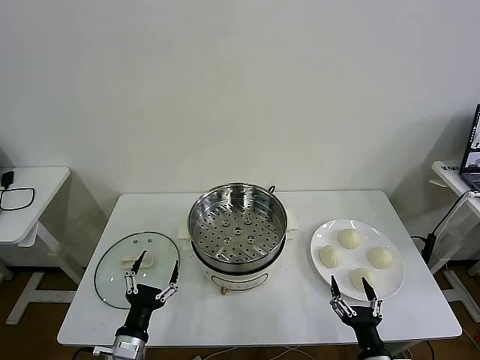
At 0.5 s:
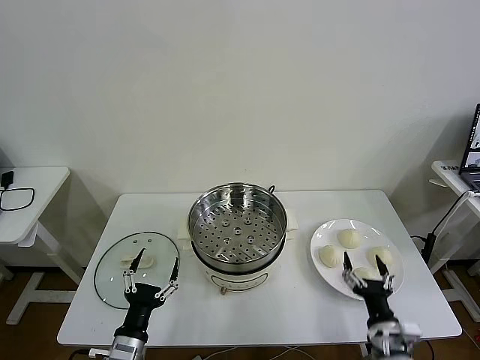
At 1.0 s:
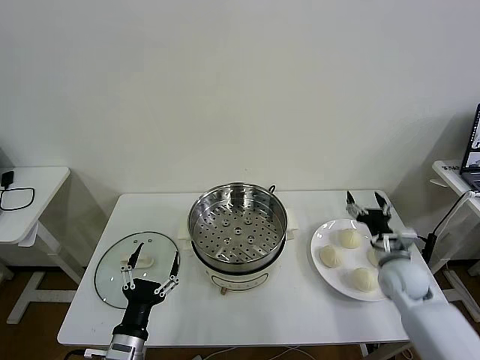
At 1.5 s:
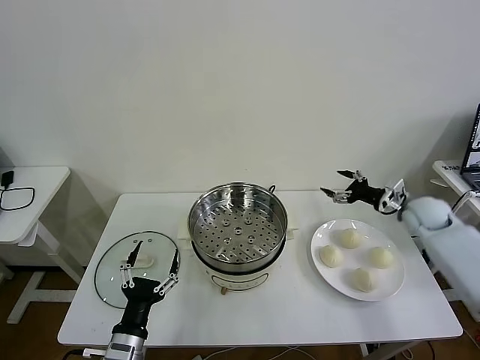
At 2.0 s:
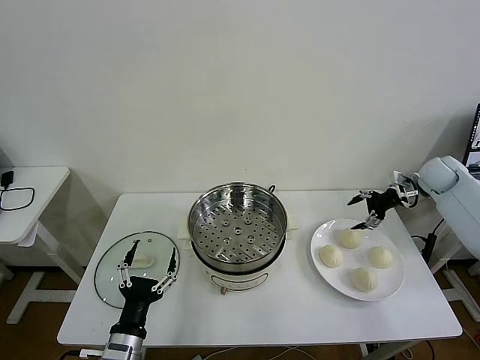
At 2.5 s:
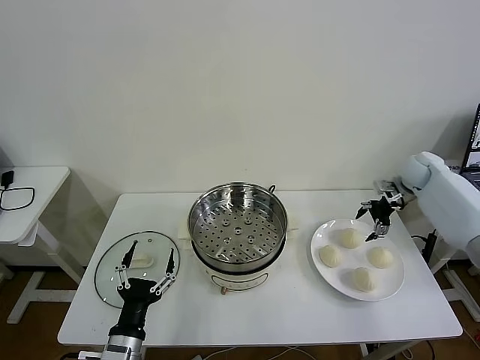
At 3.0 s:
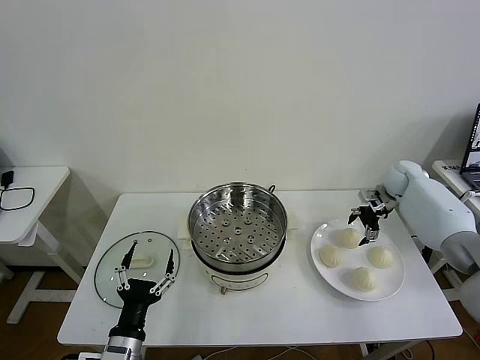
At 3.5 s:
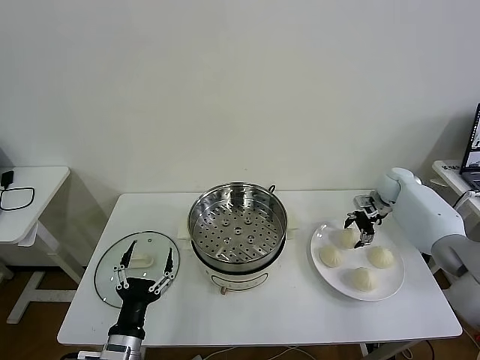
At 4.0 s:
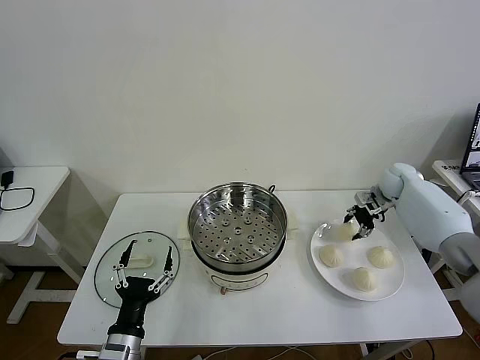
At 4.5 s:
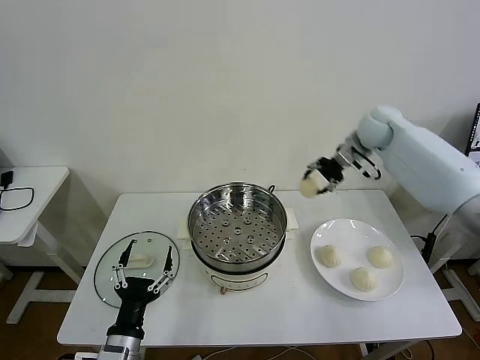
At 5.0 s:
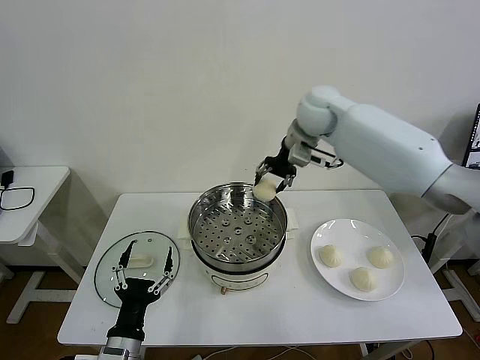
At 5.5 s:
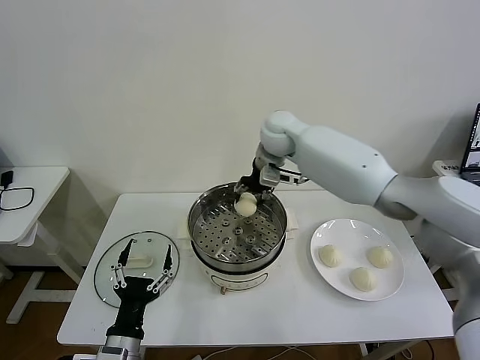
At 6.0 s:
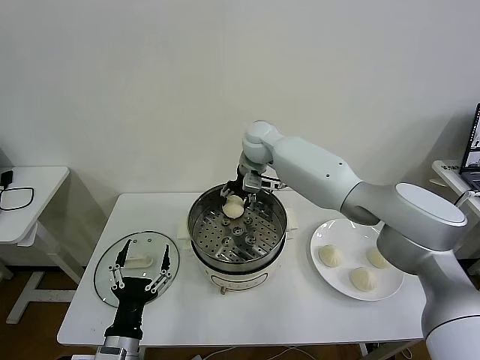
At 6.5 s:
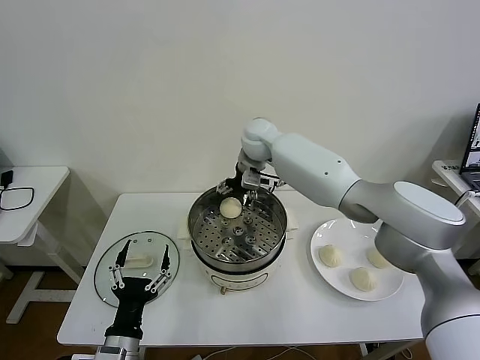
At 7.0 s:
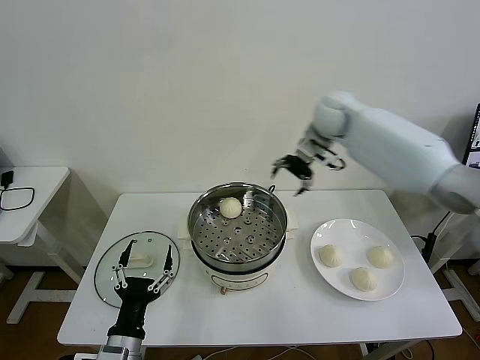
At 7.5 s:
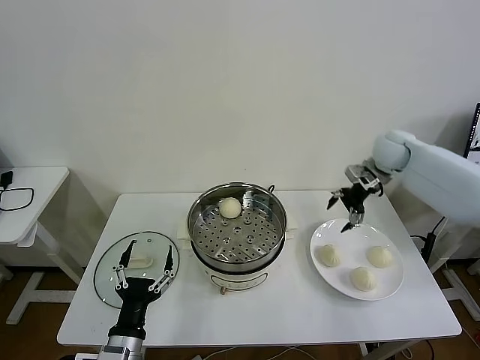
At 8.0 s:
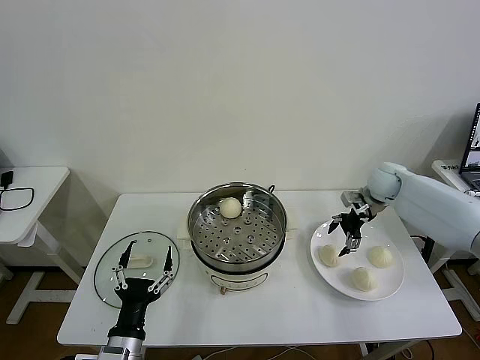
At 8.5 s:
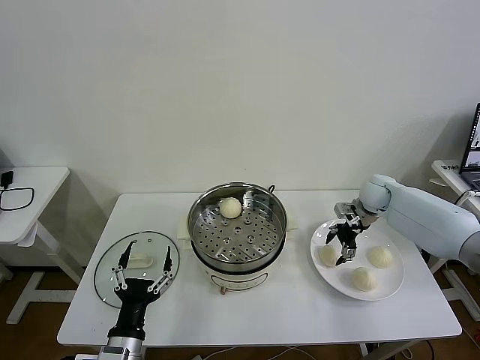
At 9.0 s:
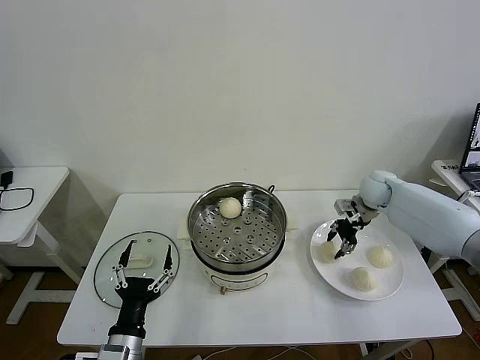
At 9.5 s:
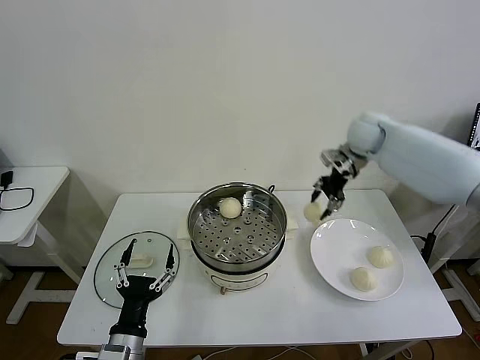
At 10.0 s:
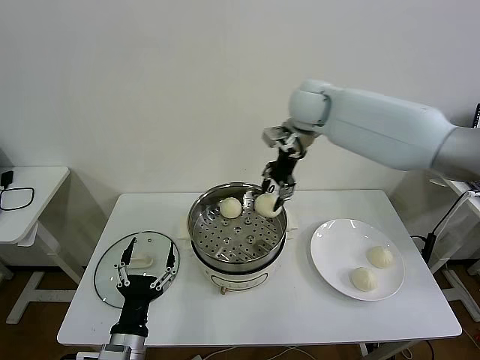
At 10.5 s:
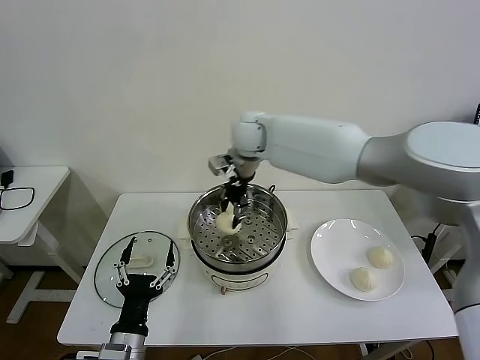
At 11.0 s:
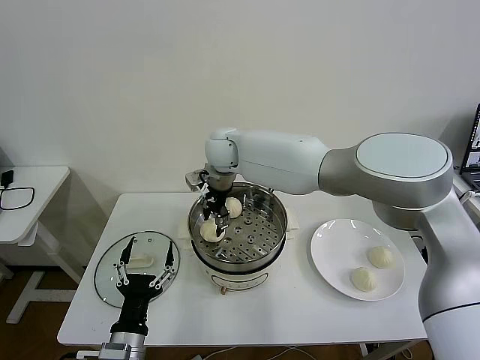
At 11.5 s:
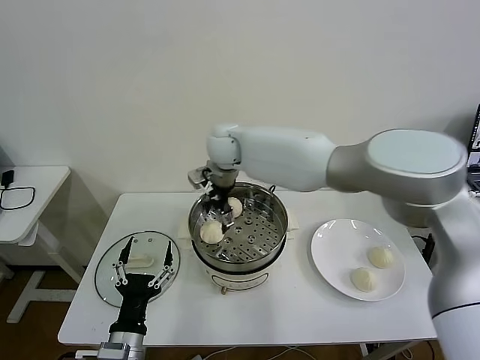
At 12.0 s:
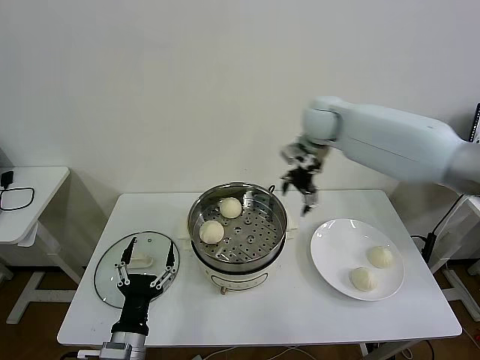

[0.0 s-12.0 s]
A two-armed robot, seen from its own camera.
Task of the whole recording: take steamed baozi put them in steamer then cover it.
Step, 0.0 to 3.5 s: Grasp the baozi in the plate with right gripper.
Step, 4.0 to 6.5 s: Place the baozi on the steamer with right gripper.
Step, 7.0 to 8.5 s: Grasp the baozi in the plate with right gripper.
Step, 9.0 to 11.0 s: Place the baozi on the steamer with right gripper.
2.0 to 4.0 s: The right gripper shifts about 5 cm to the left, and closes.
4.0 to 6.0 s: The right gripper shifts approximately 40 cm to the left.
6.0 to 8.0 s: The right gripper shifts some 35 cm to the right, and opens.
8.0 to 10.0 s: The right gripper moves to the left and upward, roughly 35 cm, and closes its fingers.
10.0 to 12.0 s: The right gripper shifts roughly 10 cm to the right, and opens.

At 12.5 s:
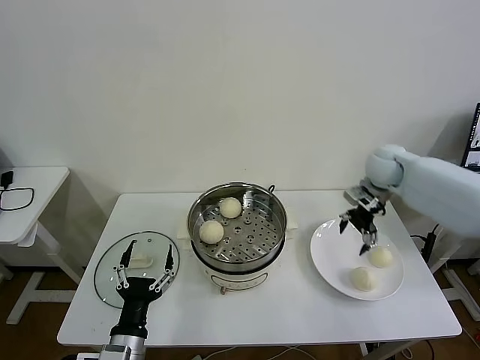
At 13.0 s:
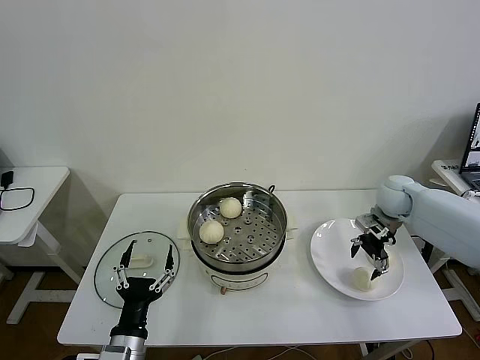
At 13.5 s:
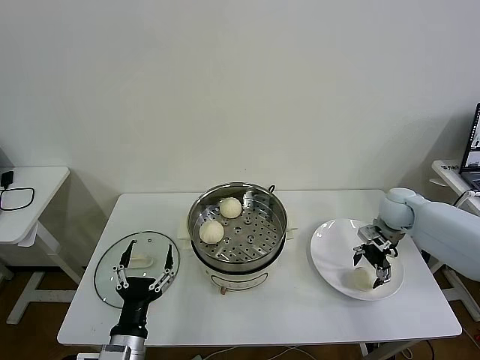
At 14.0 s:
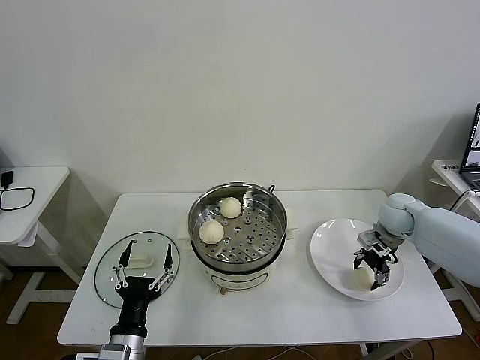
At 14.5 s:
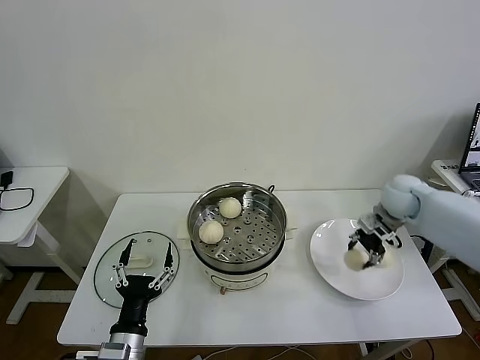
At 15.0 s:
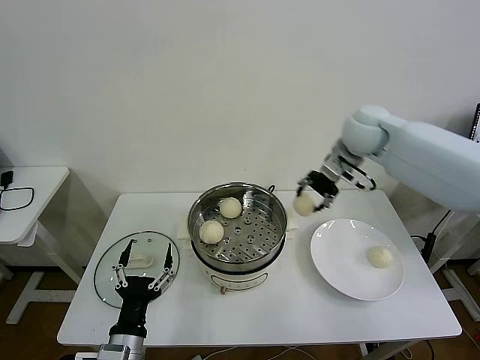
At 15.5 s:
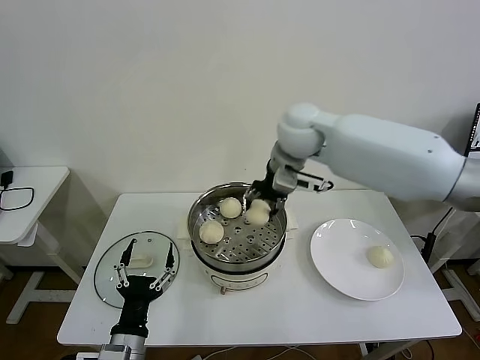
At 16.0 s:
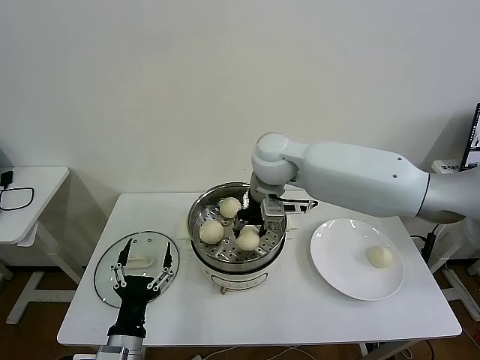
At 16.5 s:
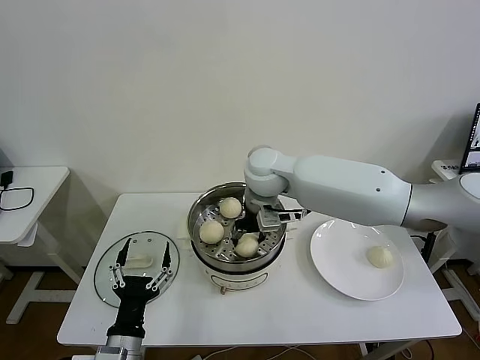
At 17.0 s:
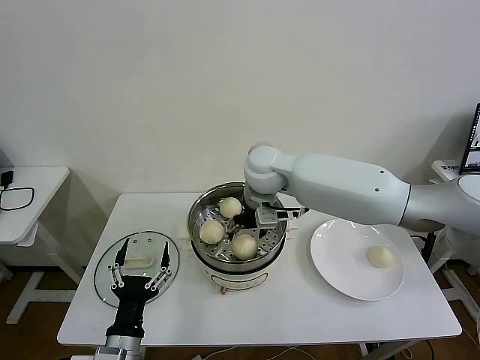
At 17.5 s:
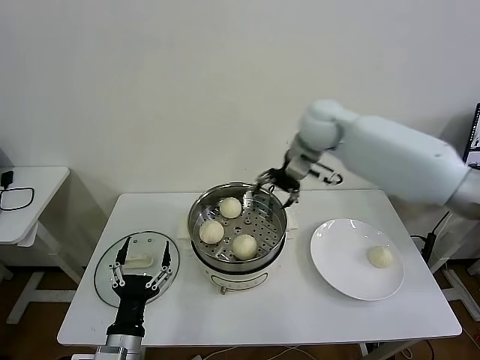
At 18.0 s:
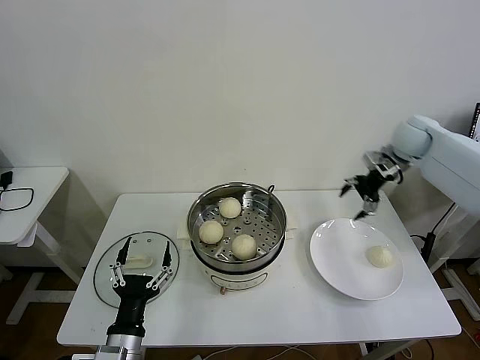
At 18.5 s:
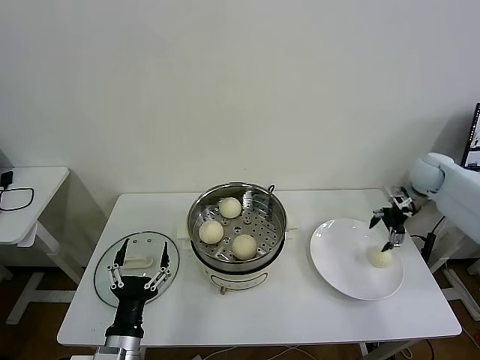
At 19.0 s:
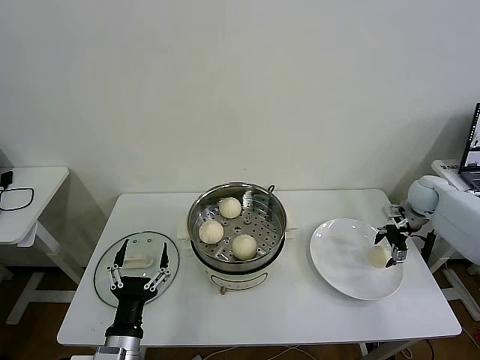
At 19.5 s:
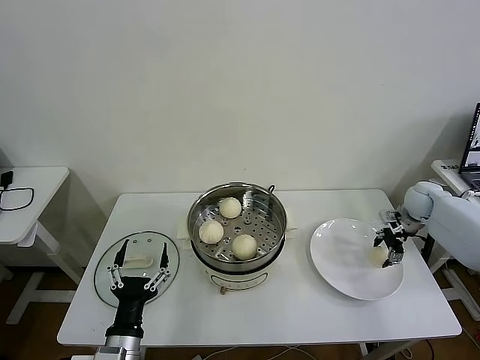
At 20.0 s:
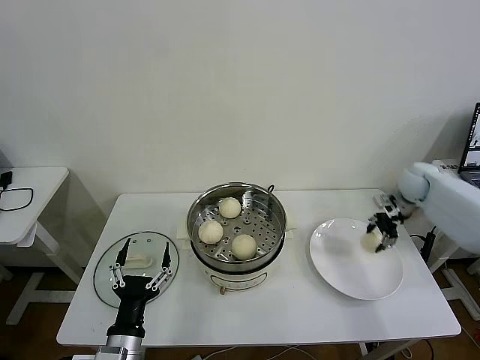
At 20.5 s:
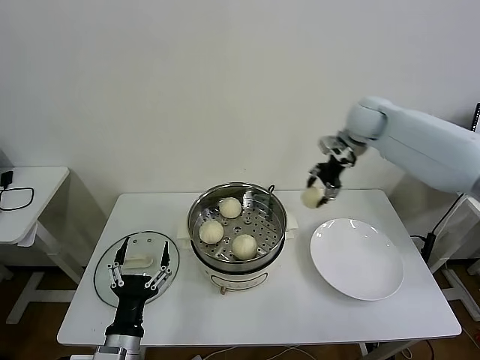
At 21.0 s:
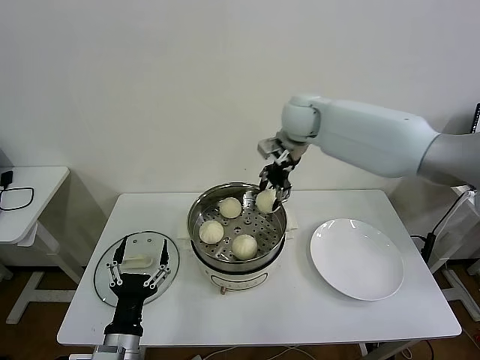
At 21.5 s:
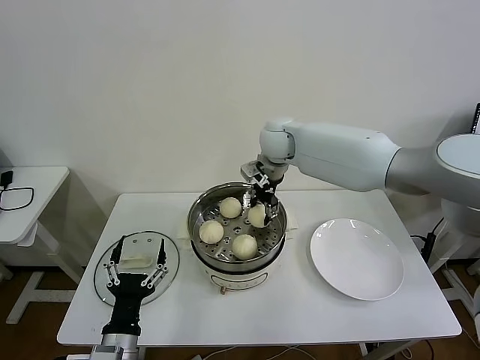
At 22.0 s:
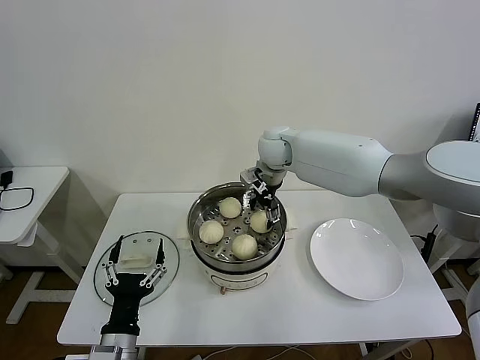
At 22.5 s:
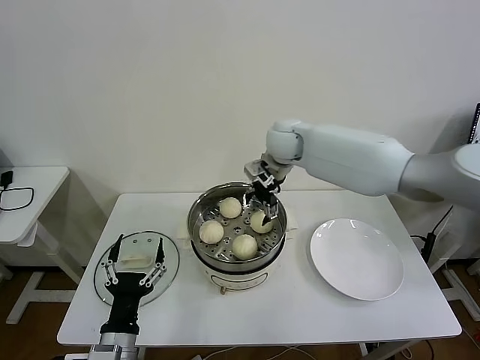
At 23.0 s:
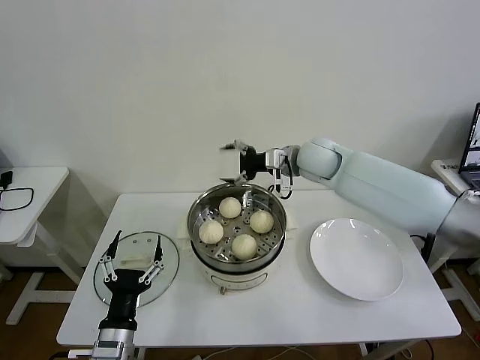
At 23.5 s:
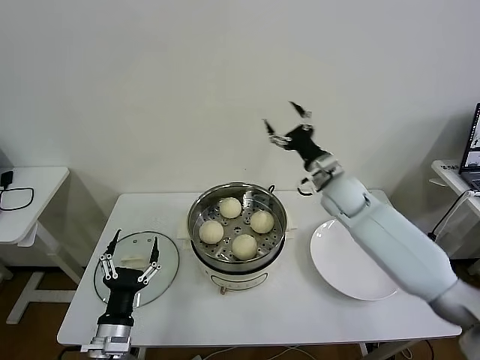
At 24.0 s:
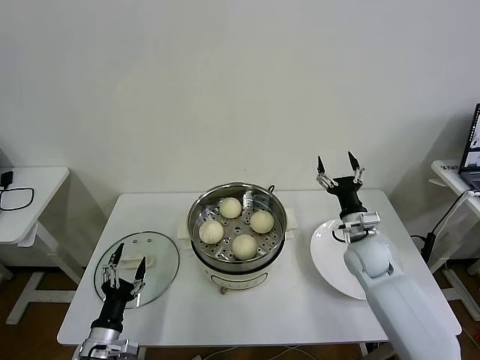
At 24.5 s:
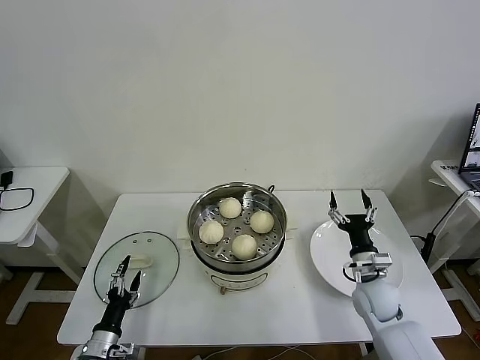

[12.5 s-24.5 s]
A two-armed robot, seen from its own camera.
Task of the whole recording: take steamed baozi put them in steamer then cover it.
Step, 12.5 to 14.0 s: Grasp the baozi in the plate with right gripper.
Step, 14.5 to 17.0 s: Place the baozi on the steamer with right gripper.
Step, 18.0 to 19.5 s: Grasp the baozi in the plate with right gripper.
Step, 20.0 to 22.5 s: Place the baozi on the steamer with right gripper.
12.5 to 14.5 s: The right gripper goes downward and returns, some 10 cm each way, and closes.
14.5 to 16.5 s: The right gripper travels to the left by some 35 cm.
16.5 to 18.5 s: The right gripper is displaced to the right by roughly 40 cm, and opens its fingers.
18.5 to 20.5 s: The right gripper heads to the left and upward, covering some 25 cm, and closes its fingers.
20.5 to 22.5 s: The right gripper goes some 15 cm to the left, and opens its fingers.
22.5 to 24.5 s: The right gripper is displaced downward, backward and to the right by about 40 cm, while the left gripper is displaced downward and to the left by roughly 20 cm.

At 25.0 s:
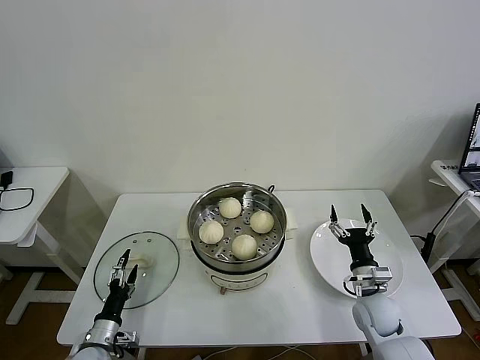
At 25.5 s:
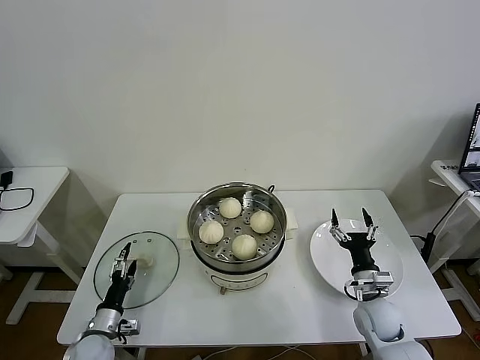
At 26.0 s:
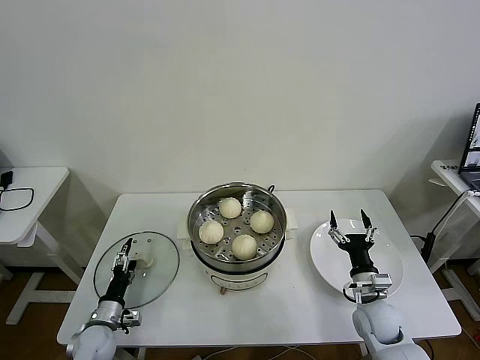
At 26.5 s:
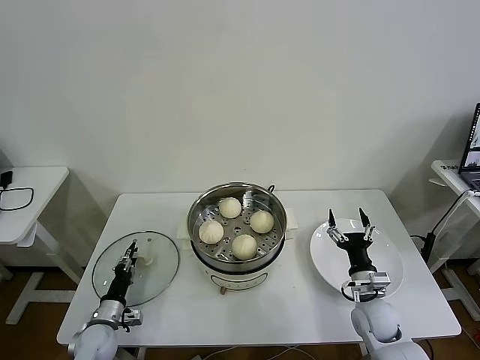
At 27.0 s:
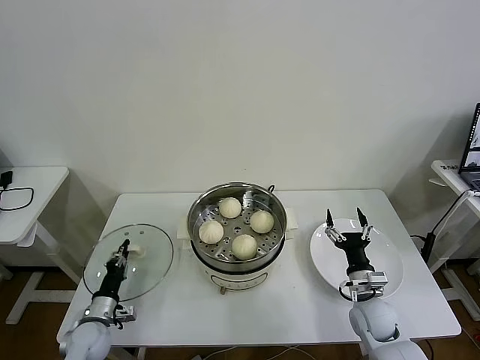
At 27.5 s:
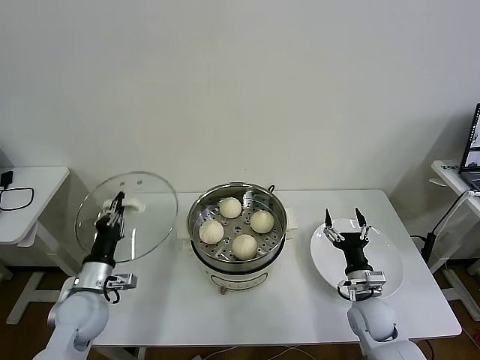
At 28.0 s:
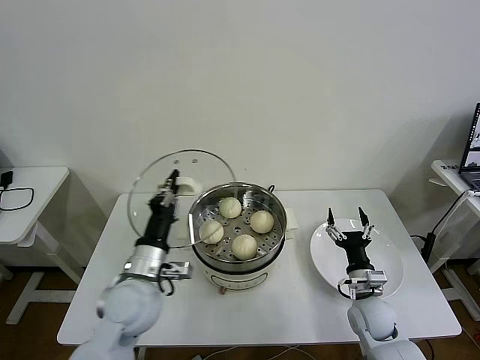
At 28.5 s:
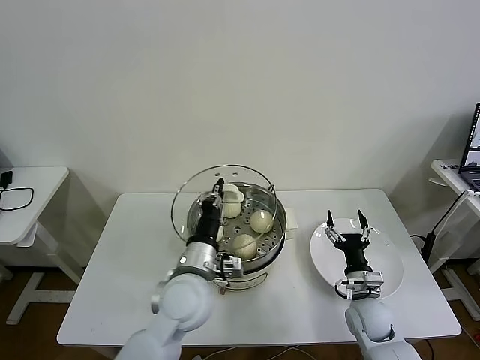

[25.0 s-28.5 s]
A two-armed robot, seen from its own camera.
Task of the whole recording: take steamed baozi put them in steamer then cover it.
Step, 25.0 to 27.0 s: Grasp the pot lid with left gripper.
25.0 to 27.0 s: The left gripper is displaced forward by about 5 cm, and closes its fingers.
27.0 to 28.5 s: The left gripper shifts about 35 cm to the right and upward.
